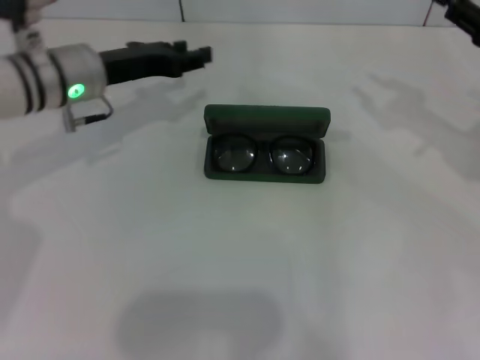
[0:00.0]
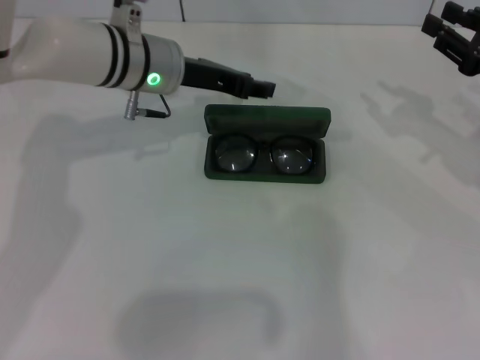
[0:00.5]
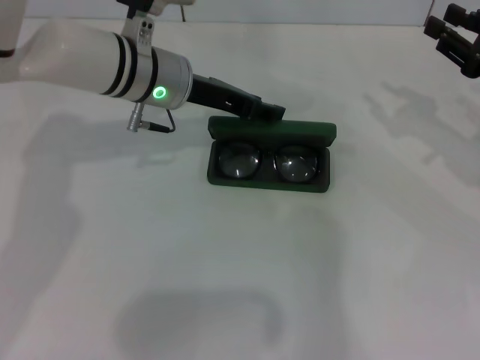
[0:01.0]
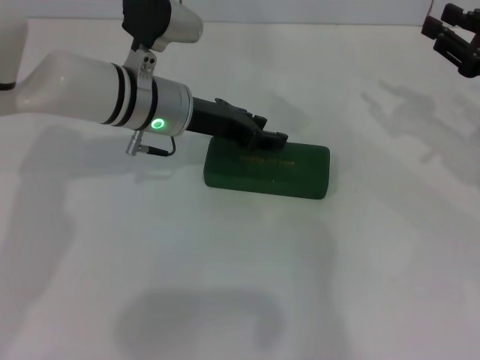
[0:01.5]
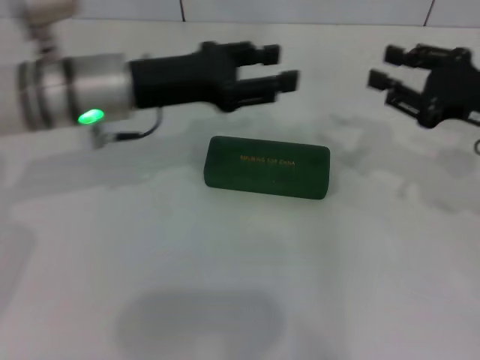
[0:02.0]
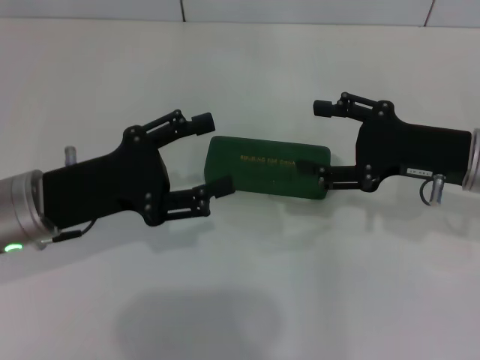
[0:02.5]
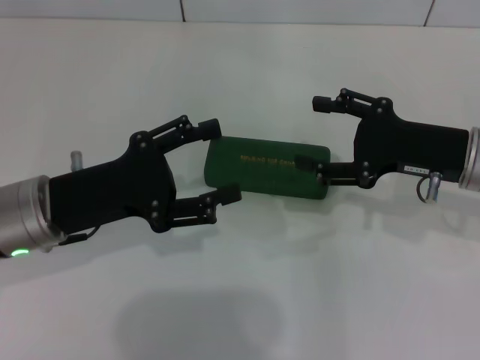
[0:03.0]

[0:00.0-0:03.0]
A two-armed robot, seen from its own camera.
0:00.0 to 0:01.5: The left gripper shifts about 10 cm to the right.
0:01.5 to 0:03.0: The left gripper goes approximately 15 cm backward and to the left. The right gripper shifts approximately 10 cm to the left, and opens.

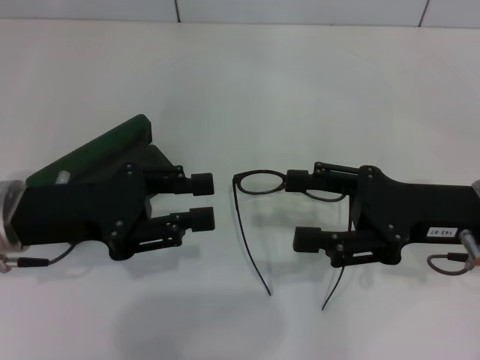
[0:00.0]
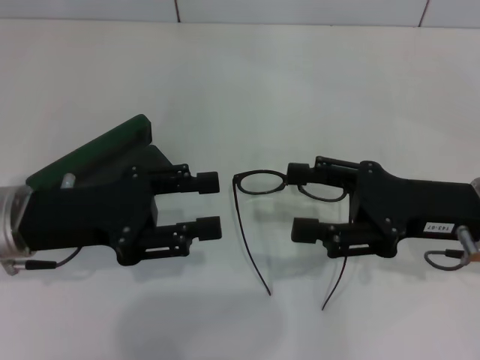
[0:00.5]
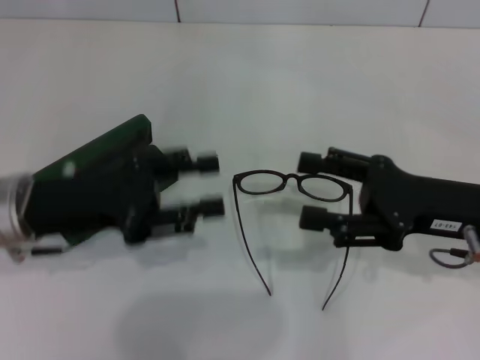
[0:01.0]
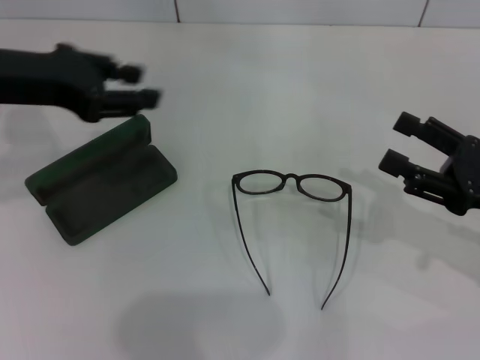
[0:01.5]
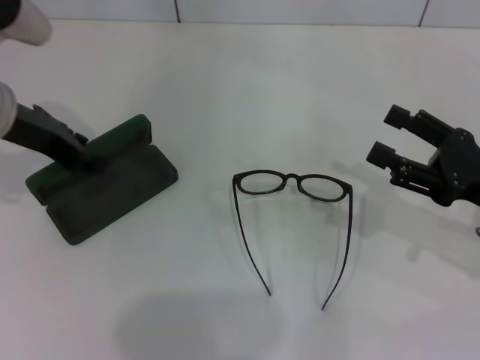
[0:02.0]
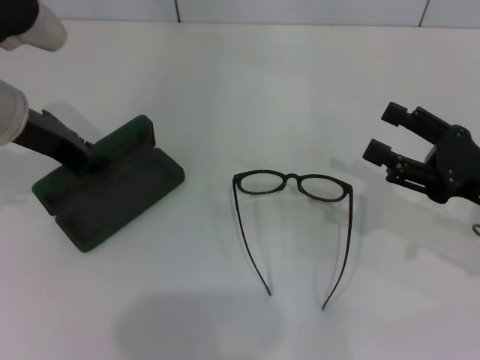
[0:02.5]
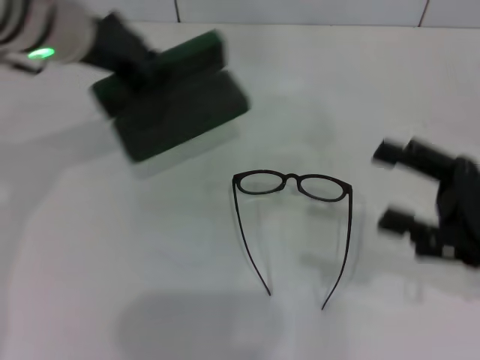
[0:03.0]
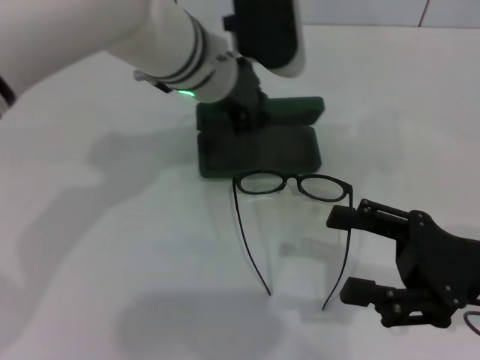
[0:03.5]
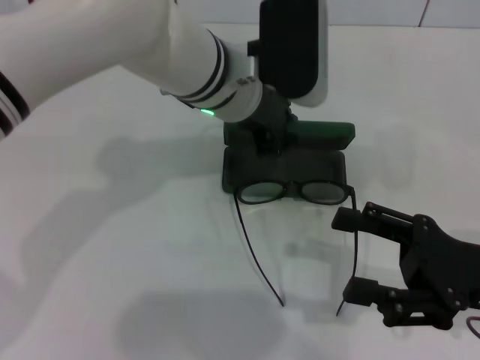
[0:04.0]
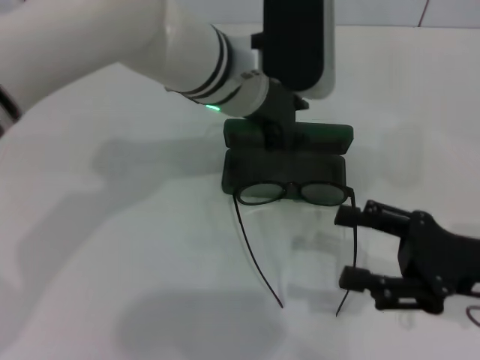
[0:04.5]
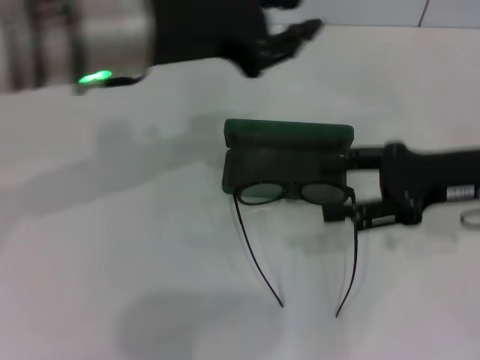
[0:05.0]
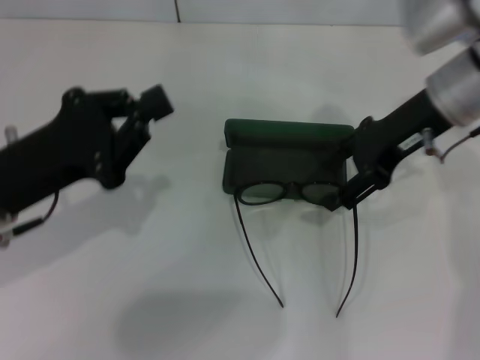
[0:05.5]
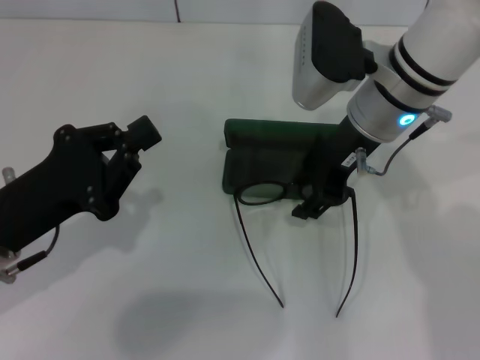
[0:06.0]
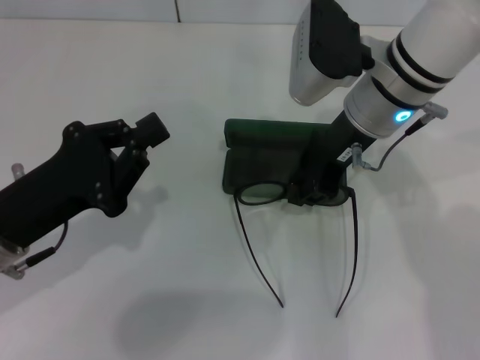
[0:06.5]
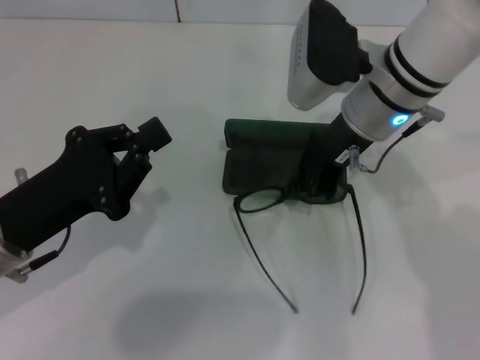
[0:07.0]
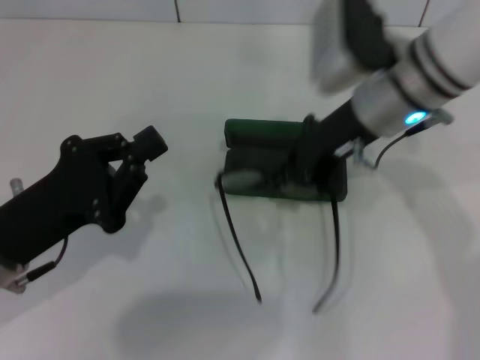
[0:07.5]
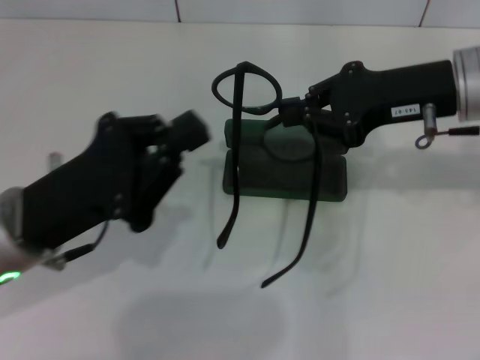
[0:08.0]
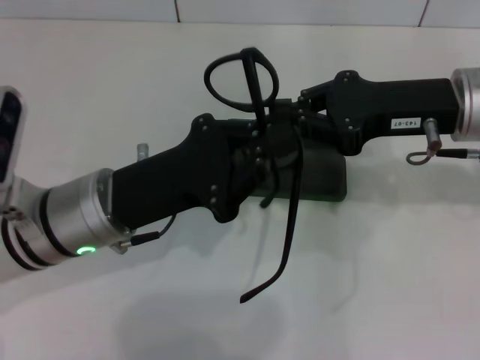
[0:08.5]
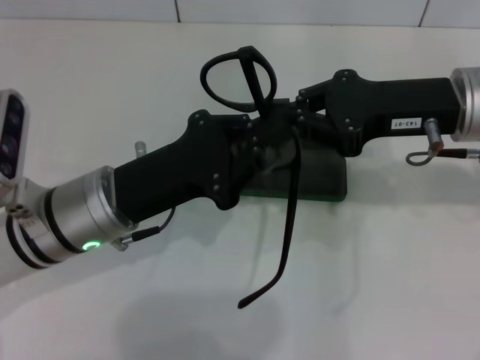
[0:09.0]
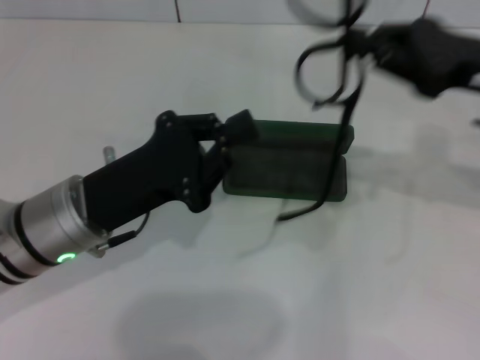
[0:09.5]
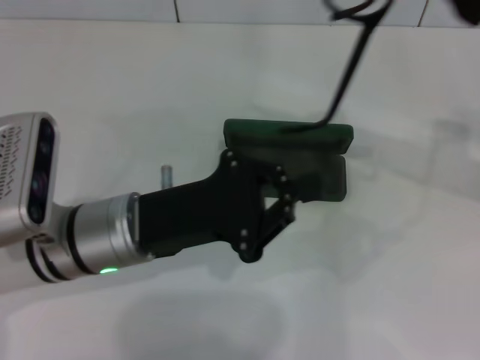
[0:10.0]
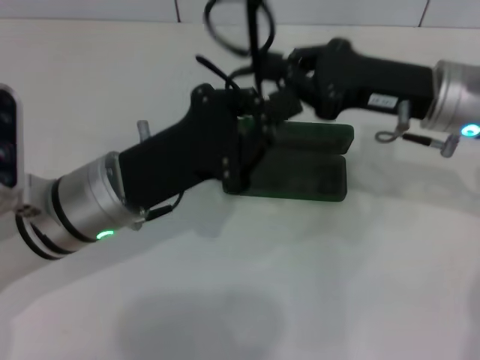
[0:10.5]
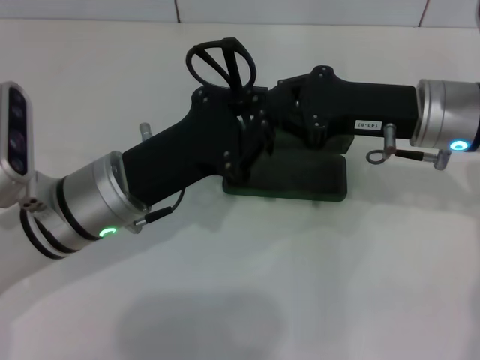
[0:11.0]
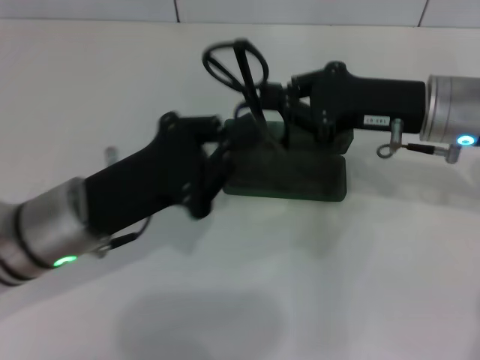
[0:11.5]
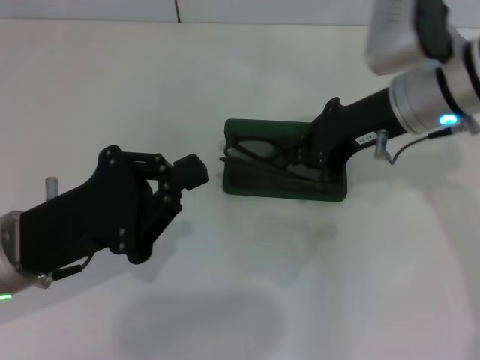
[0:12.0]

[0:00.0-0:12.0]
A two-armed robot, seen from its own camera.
Step, 0:00.0 to 0:02.0: Grab the glasses case with your left hand.
Step, 0:02.5 to 0:04.0: Place the glasses case in the center of the table with your left hand.
Step, 0:04.5 to 0:06.5: Grab the eyeglass frame with your right hand.
Step, 0:07.0 to 0:11.0: Fold the frame with your left hand.
0:00.0 to 0:02.0: The right gripper travels to the right by some 5 cm, while the left gripper goes some 10 cm forward and upward.
0:02.0 to 0:04.0: The right gripper shifts by about 5 cm, while the left gripper shifts about 20 cm to the right, and closes up.
0:04.0 to 0:06.0: The left gripper heads to the left and backward, covering some 25 cm, while the right gripper shifts some 25 cm forward, to the left and upward.
0:06.0 to 0:08.0: The right gripper goes some 10 cm to the right, and closes.
0:08.0 to 0:10.0: The grippers both shift to the right by some 5 cm.
0:10.0 to 0:12.0: The grippers both shift to the left by roughly 10 cm.

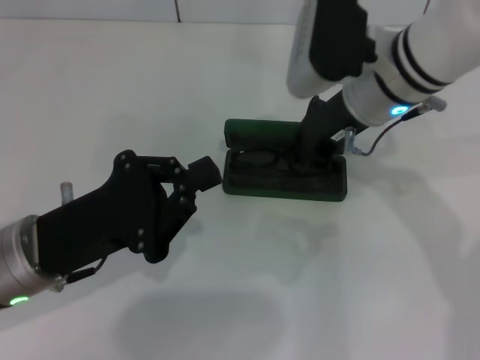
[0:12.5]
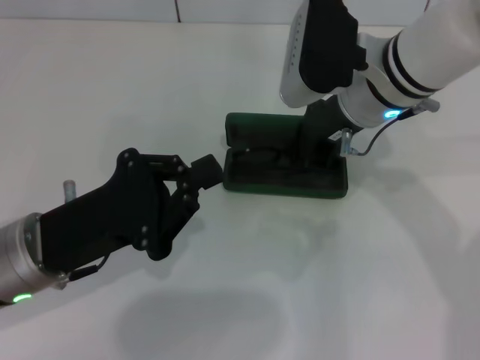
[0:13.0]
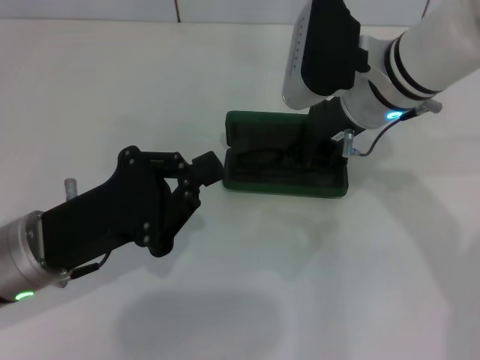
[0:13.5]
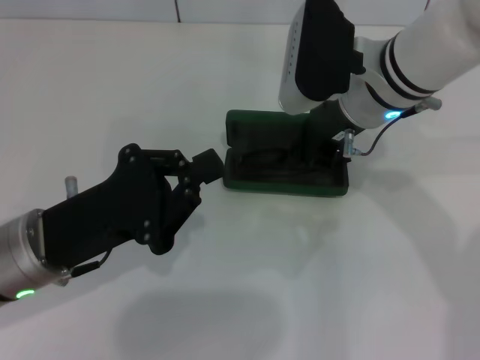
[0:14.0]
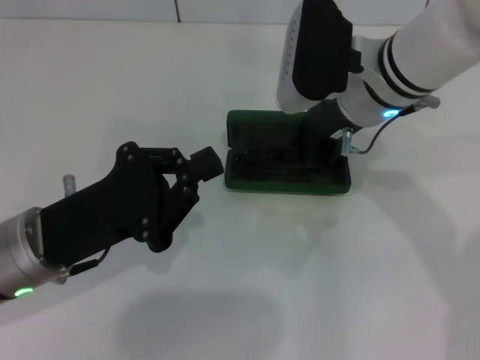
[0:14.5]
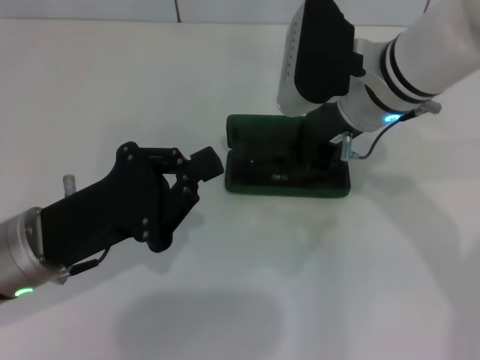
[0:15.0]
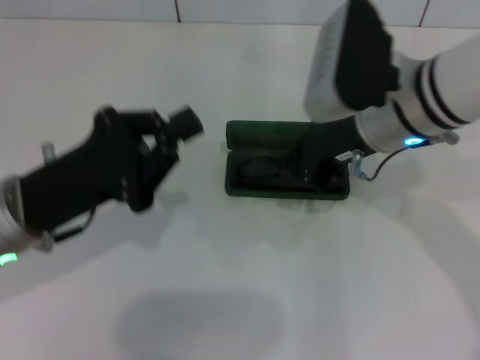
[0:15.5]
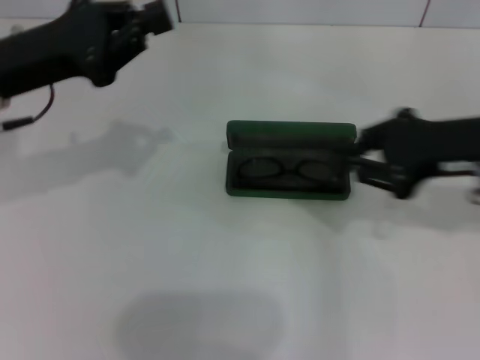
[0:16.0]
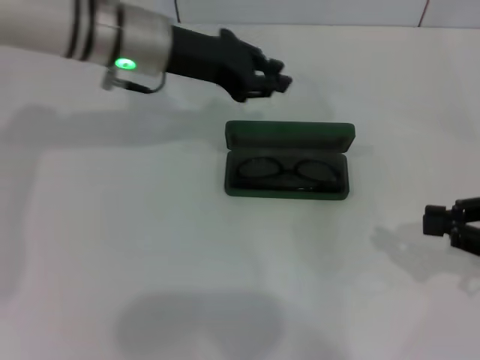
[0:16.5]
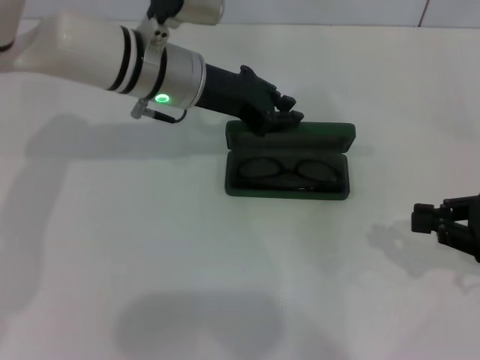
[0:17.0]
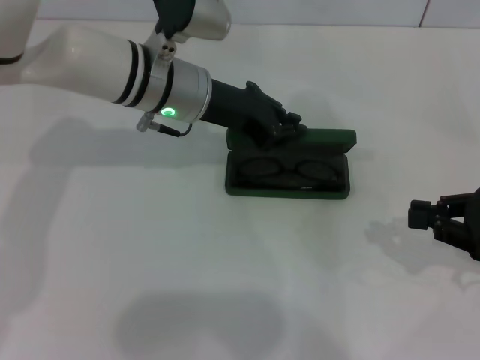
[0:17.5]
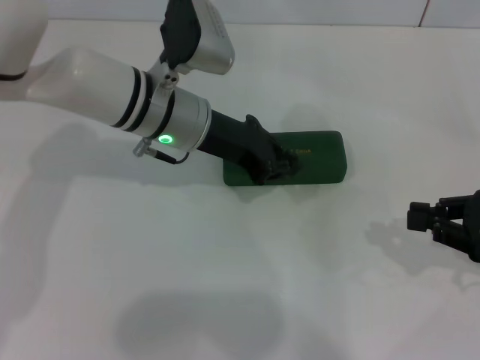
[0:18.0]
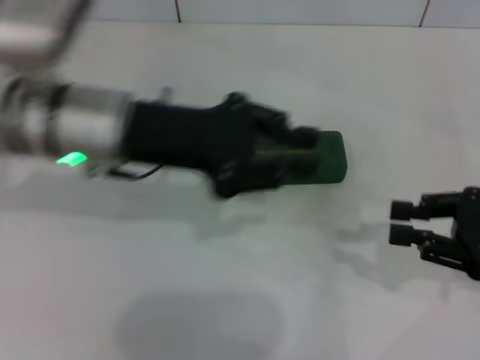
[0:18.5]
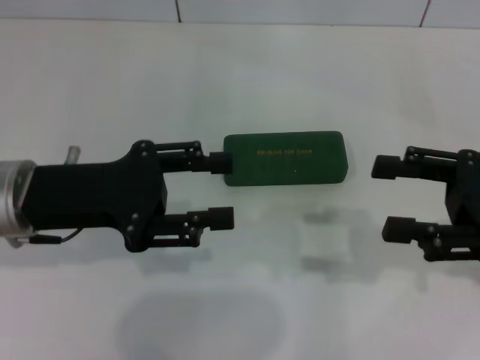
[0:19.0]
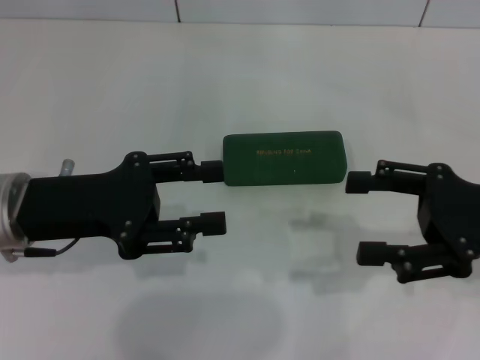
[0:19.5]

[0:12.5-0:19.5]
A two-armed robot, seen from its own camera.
Step, 0:12.5 to 0:15.0: Put the glasses into the case with your right hand.
Step, 0:15.5 to 0:17.5: Close the glasses case with your left hand.
0:12.5 to 0:14.5: The grippers make only small movements.
0:14.5 to 0:16.0: The right gripper travels to the right and backward by about 15 cm; the left gripper shifts approximately 15 cm forward and upward.
0:16.0 to 0:17.5: The left gripper goes about 15 cm to the right and forward. The right gripper travels to the right and downward by about 10 cm.
0:17.5 to 0:19.5: The right gripper is displaced to the left by some 5 cm, and opens its fingers; the left gripper is displaced backward and to the left by about 20 cm, and opens up.
